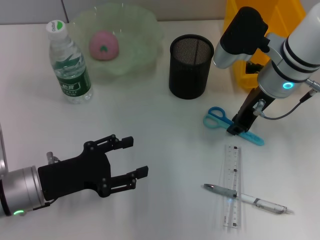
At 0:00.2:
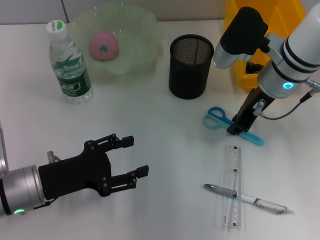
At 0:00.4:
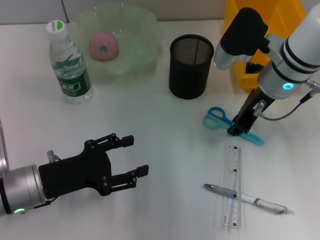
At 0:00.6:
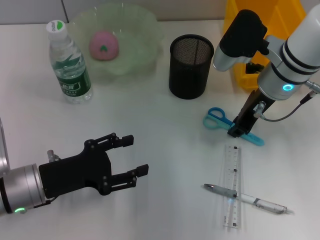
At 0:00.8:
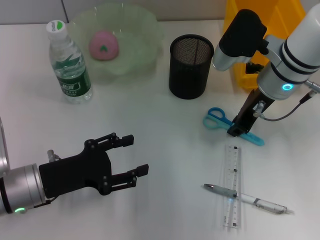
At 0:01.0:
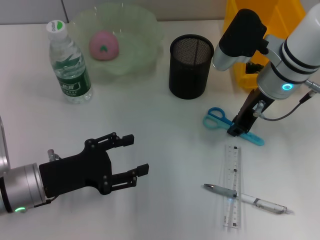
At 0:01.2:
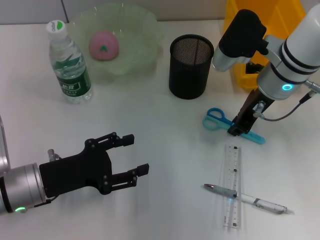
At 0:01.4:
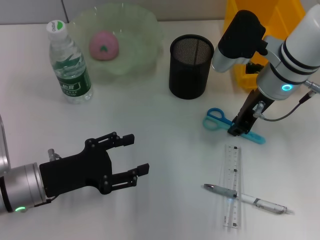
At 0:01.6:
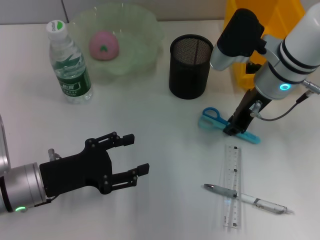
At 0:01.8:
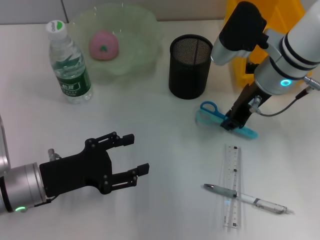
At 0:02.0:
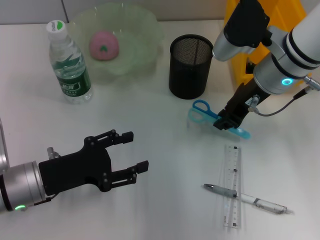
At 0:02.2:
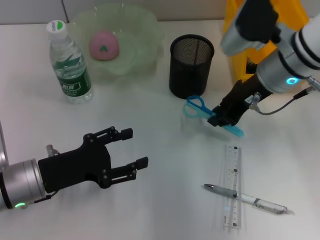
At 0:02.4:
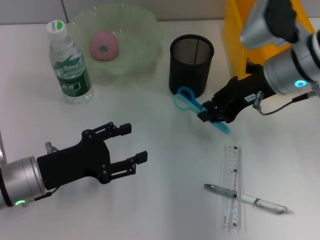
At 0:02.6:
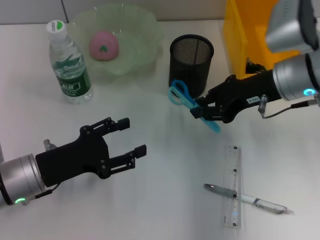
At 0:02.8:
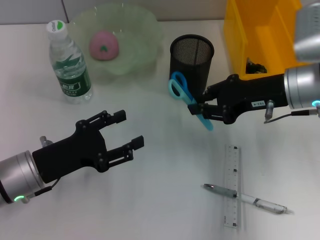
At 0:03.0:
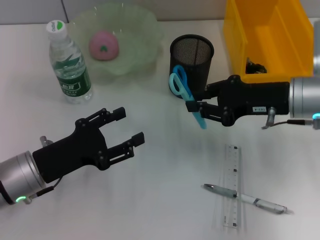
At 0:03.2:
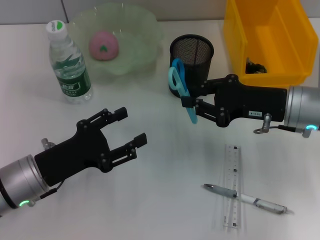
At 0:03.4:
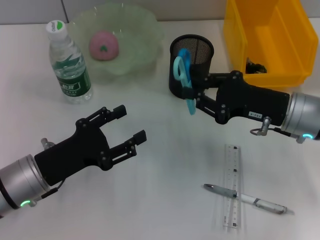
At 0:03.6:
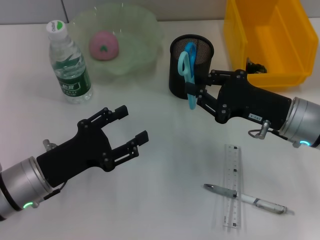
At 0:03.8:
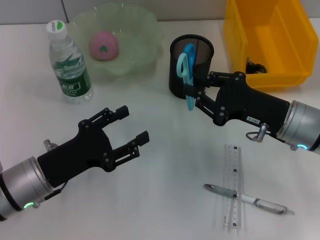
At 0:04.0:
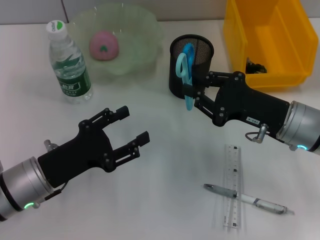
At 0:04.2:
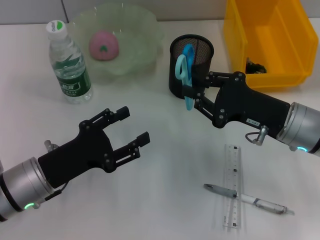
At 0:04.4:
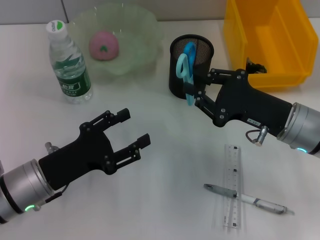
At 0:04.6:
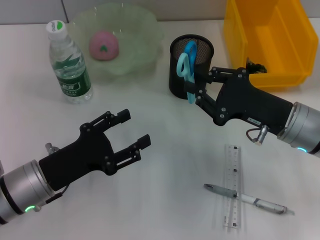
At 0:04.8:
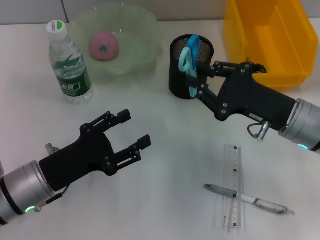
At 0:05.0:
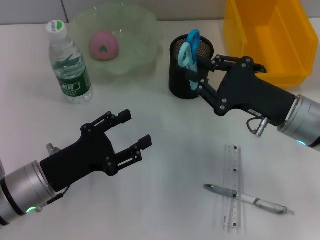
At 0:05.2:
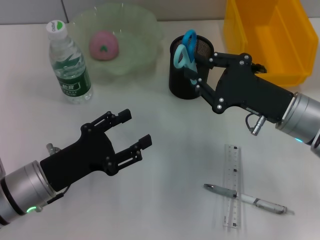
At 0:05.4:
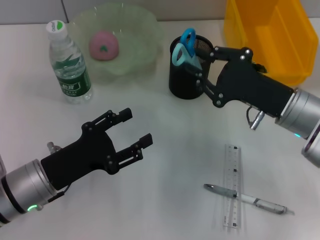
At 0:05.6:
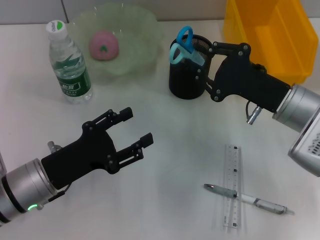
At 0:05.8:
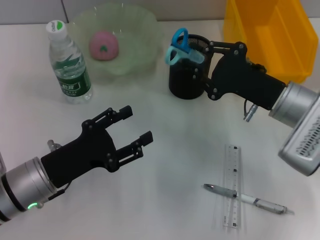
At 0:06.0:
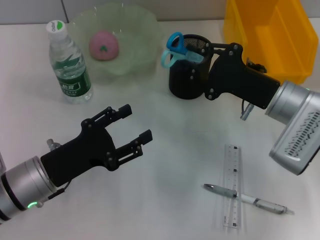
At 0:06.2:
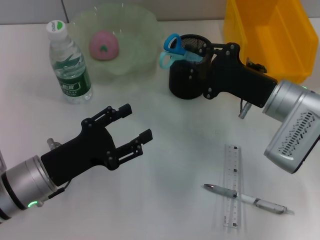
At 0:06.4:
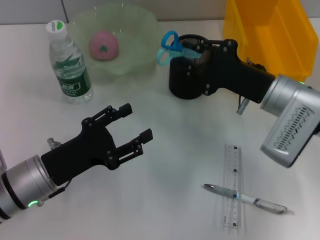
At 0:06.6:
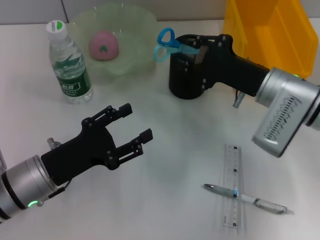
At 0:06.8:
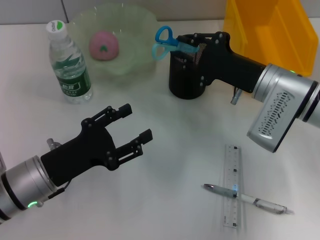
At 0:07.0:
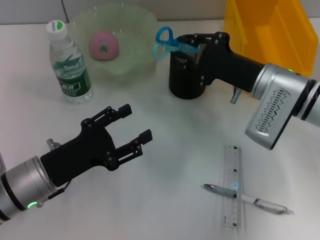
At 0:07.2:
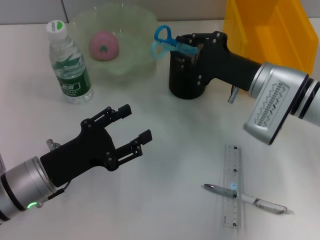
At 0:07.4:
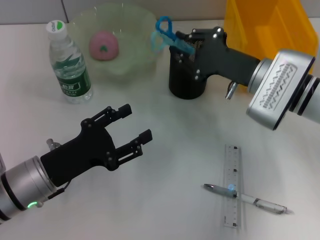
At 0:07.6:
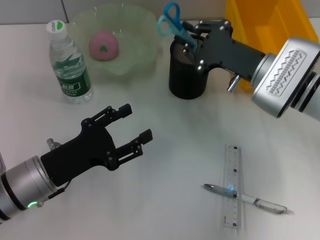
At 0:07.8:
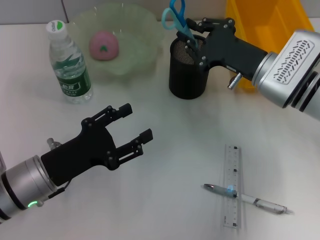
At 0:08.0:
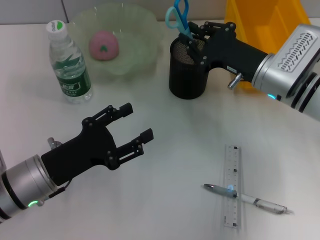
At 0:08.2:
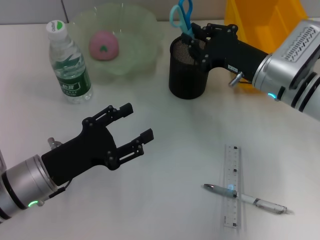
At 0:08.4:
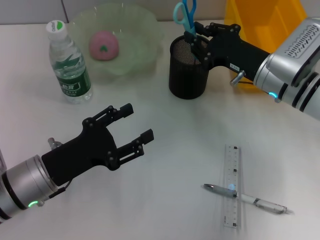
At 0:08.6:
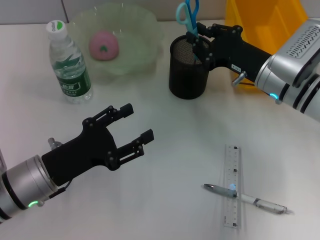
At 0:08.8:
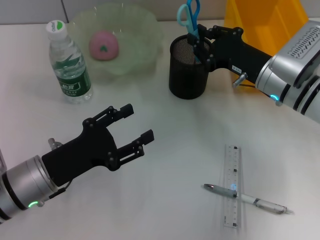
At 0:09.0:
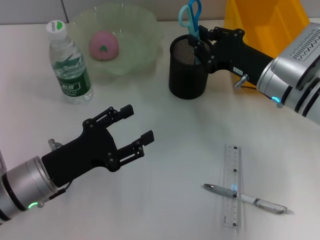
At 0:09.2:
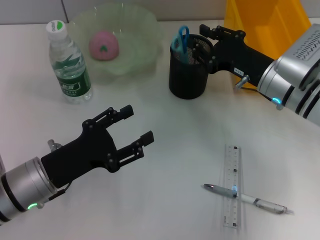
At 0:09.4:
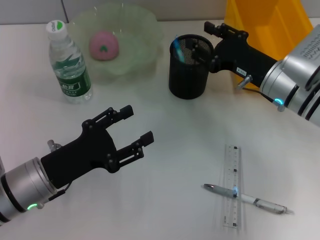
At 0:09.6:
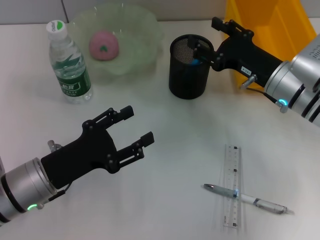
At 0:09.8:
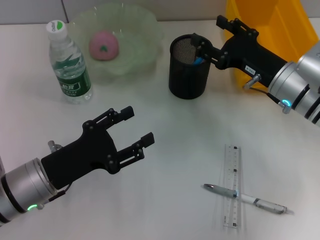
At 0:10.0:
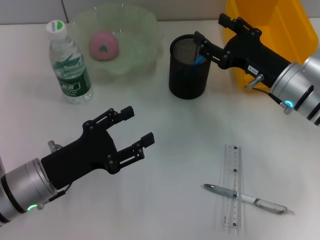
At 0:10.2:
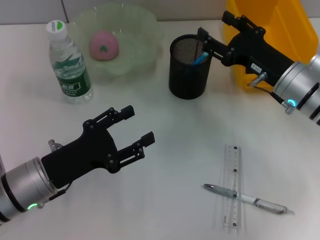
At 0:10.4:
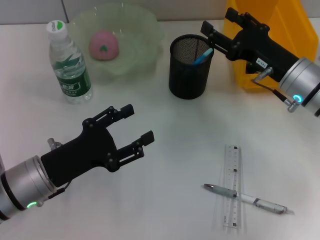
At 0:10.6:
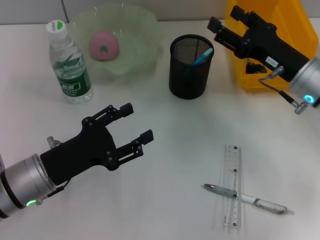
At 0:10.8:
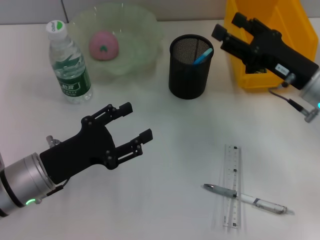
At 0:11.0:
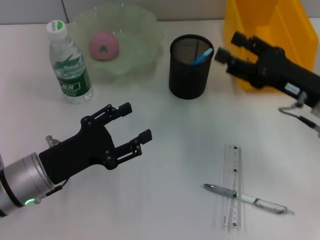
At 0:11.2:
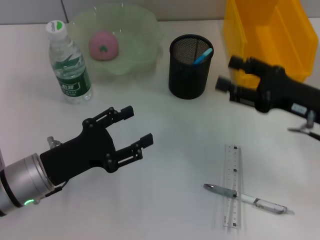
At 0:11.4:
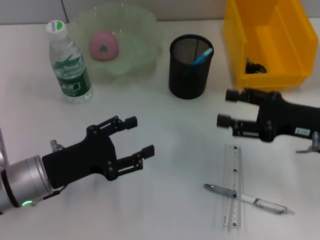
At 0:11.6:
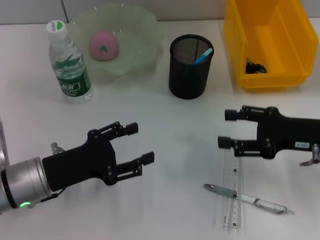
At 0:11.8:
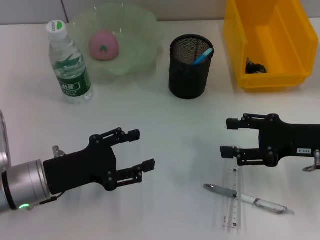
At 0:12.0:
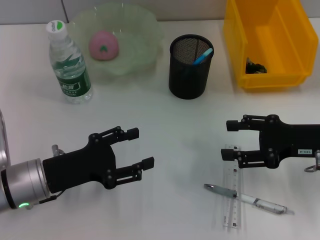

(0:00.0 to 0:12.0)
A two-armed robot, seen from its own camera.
Step, 0:01.6 - 0:09.6: Place the blue scissors into the pen holder with the right hand.
0:00.0 - 0:01.6: Neither gripper changes place.
0:01.6 - 0:03.0: The right gripper heads to the right and backward, covering roughly 10 cm.
0:03.0 - 0:04.4: The right gripper shifts by approximately 5 cm.
0:06.0 - 0:07.6: The grippers move only a little.
0:09.0 - 0:10.4: The right gripper opens.
0:10.4 - 0:12.0: The right gripper heads backward and to the right, covering some 10 cm.

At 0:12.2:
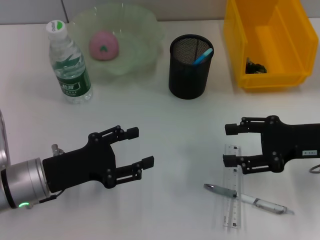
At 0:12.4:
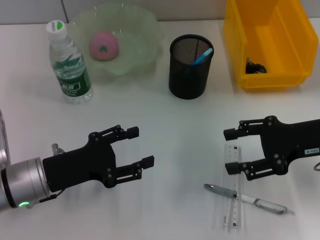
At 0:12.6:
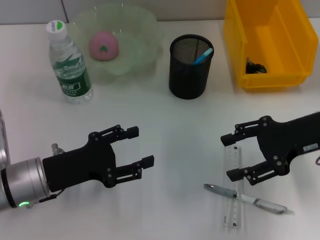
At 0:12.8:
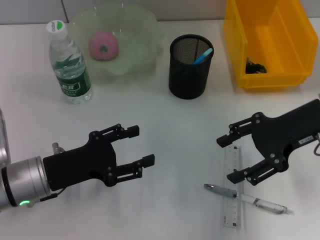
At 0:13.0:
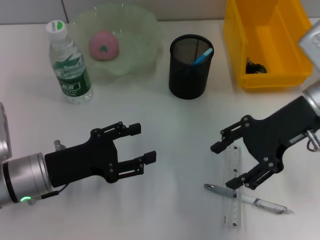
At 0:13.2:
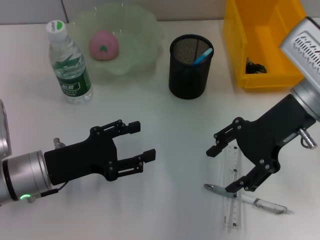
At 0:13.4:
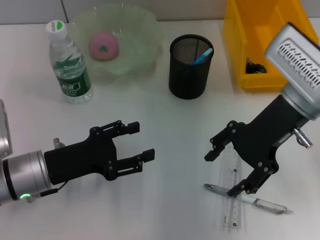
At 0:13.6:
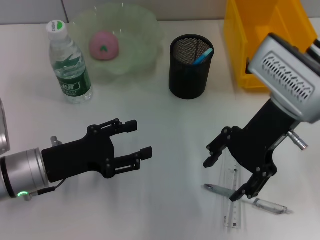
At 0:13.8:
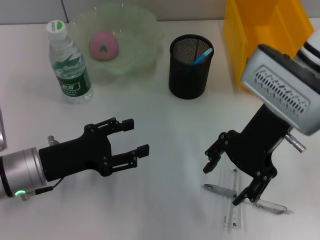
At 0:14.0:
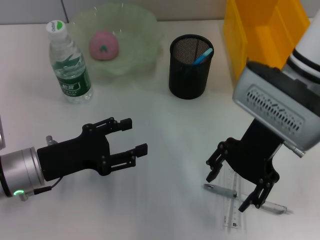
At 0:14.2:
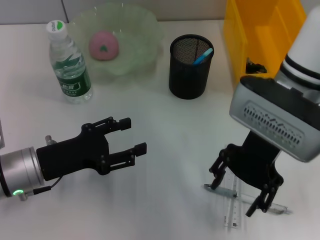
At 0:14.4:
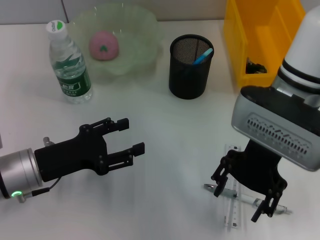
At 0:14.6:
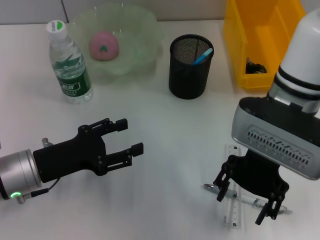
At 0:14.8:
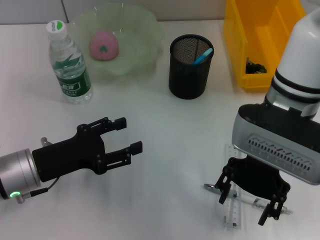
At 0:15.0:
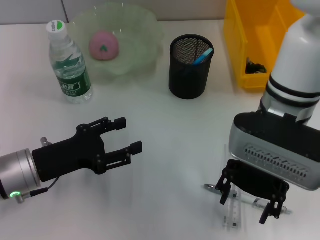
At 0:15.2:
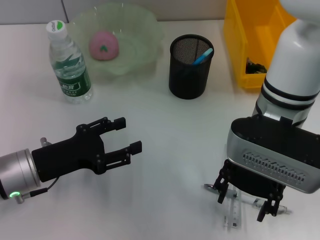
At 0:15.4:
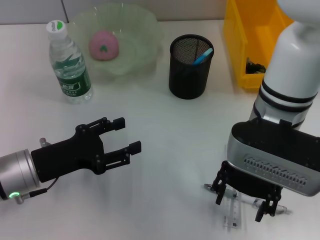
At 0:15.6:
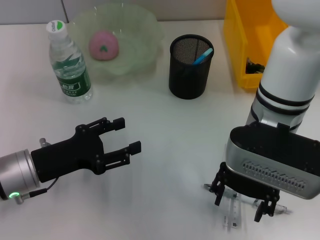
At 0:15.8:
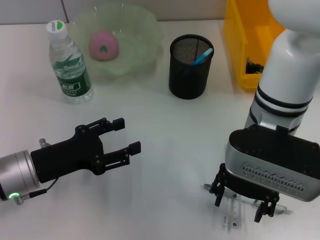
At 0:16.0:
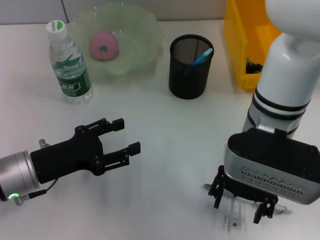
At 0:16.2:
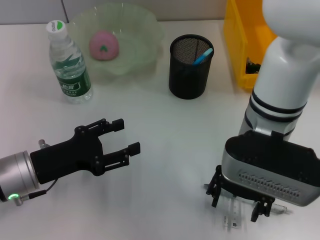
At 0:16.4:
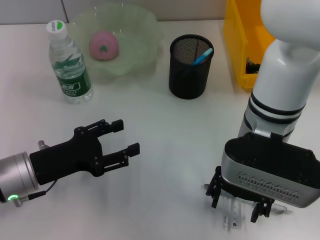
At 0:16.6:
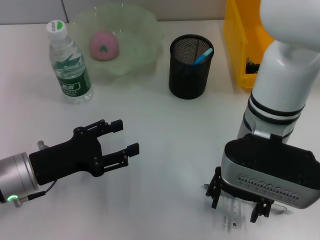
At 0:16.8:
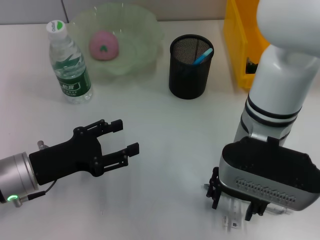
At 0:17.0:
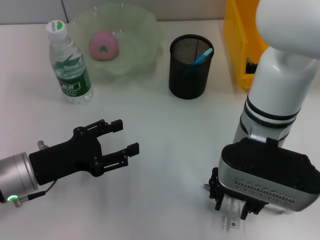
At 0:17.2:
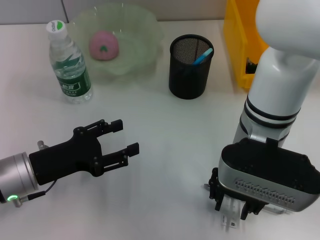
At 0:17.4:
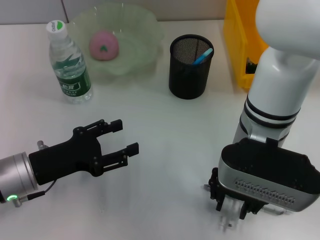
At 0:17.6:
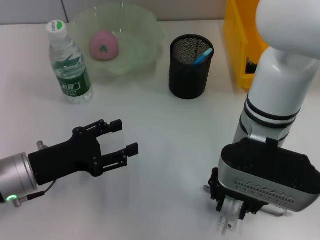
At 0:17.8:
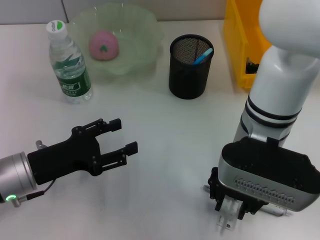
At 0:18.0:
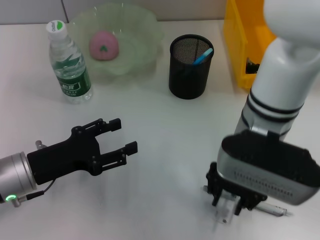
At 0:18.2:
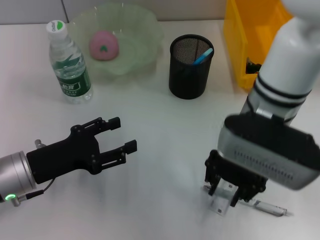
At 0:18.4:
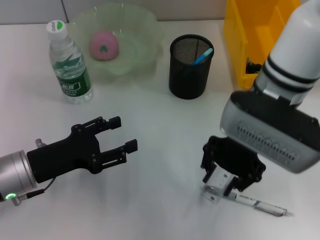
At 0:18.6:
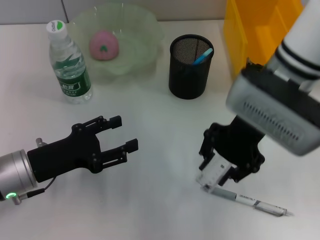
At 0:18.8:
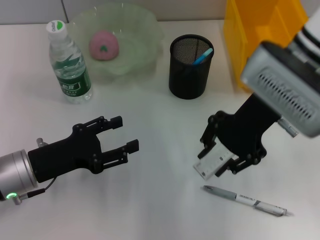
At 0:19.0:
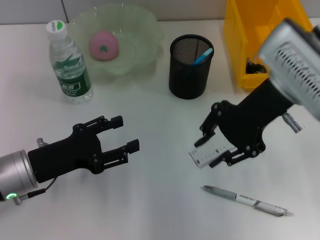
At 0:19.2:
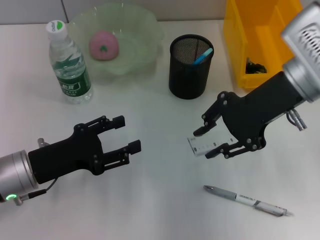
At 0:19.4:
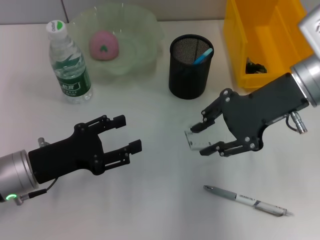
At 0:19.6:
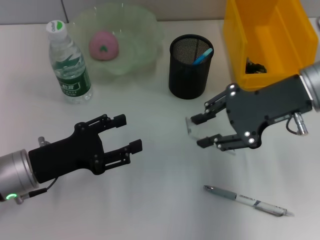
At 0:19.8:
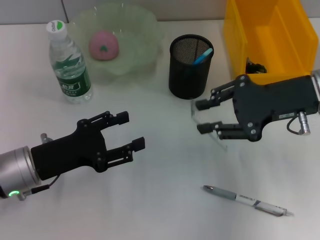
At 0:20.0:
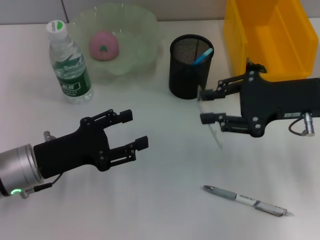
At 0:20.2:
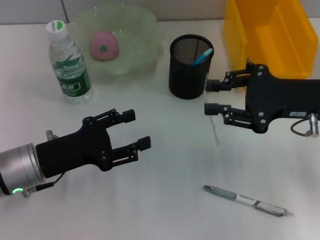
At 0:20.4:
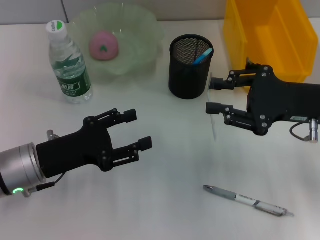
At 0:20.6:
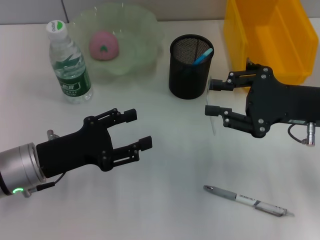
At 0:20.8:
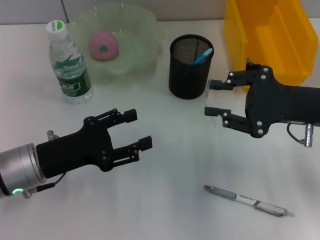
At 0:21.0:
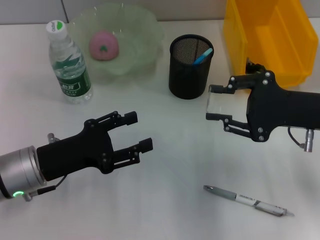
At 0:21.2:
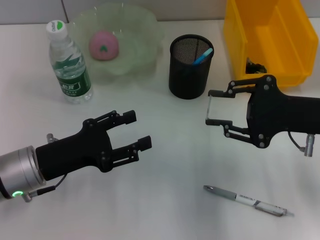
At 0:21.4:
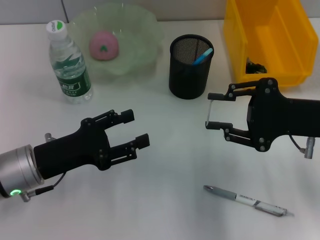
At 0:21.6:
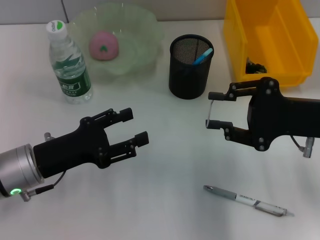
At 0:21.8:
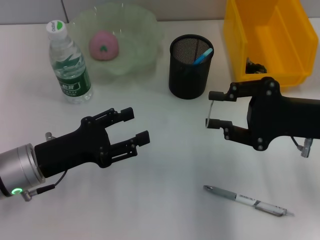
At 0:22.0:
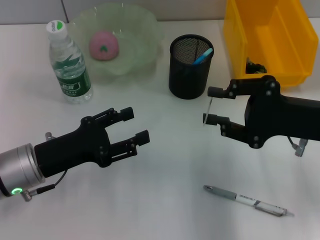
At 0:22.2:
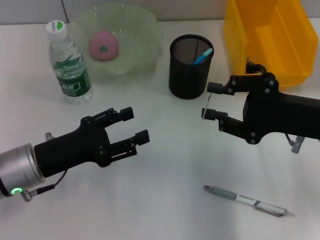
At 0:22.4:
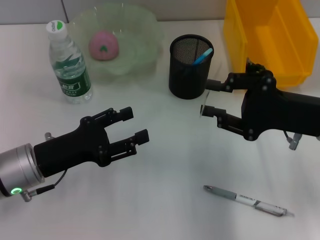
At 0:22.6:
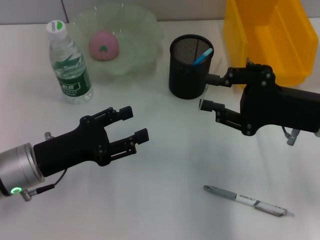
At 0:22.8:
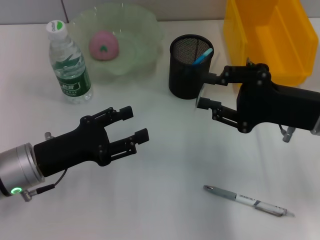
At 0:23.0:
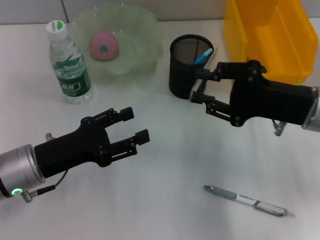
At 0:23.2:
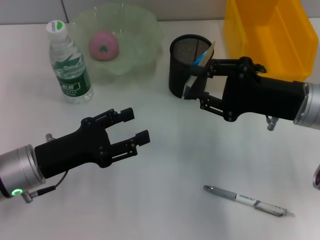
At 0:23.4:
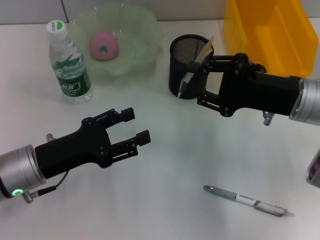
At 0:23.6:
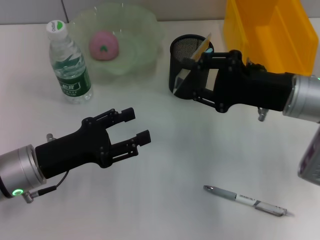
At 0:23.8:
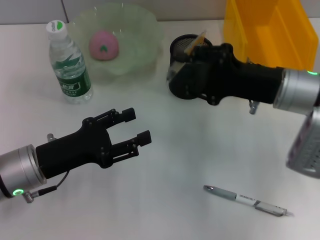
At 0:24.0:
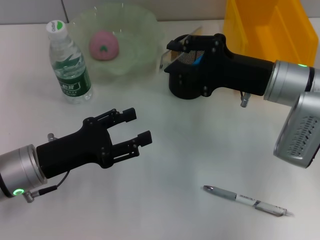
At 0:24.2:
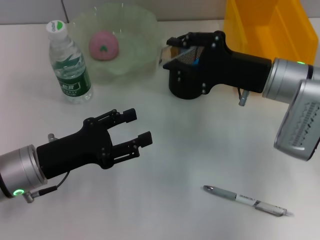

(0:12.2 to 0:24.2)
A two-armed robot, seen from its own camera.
Step, 0:12.2 - 0:17.6: Grab the ruler with the right hand.
0:12.2 - 0:13.8: The right gripper is displaced to the left, upward and forward by approximately 15 cm.
0:13.8 - 0:15.2: The right gripper moves roughly 5 cm.
0:15.2 - 0:16.6: The grippers stay close to where they were, moving slightly.
0:16.6 - 0:18.2: The right gripper closes.
0:18.2 - 0:19.8: The right gripper heads to the right, covering roughly 15 cm.
0:19.8 - 0:21.2: The right gripper ends up about 5 cm from where it was.
0:22.6 - 0:24.2: The right gripper goes roughly 10 cm forward and to the left.
